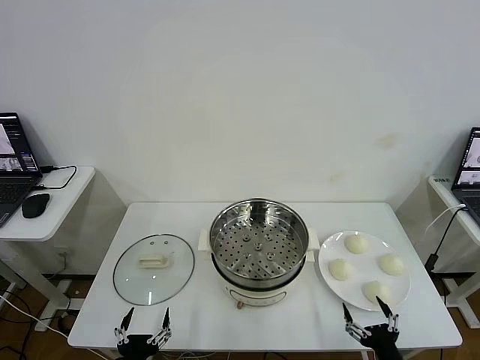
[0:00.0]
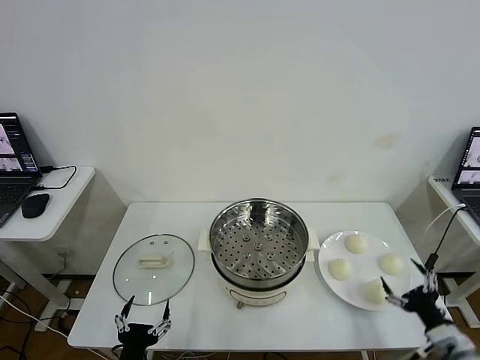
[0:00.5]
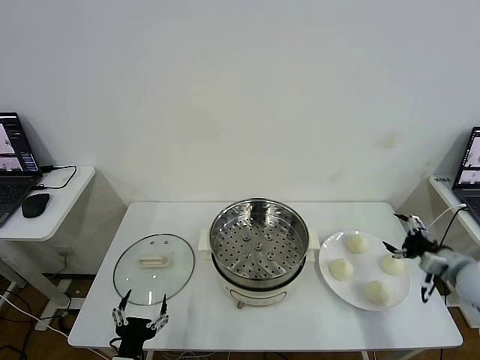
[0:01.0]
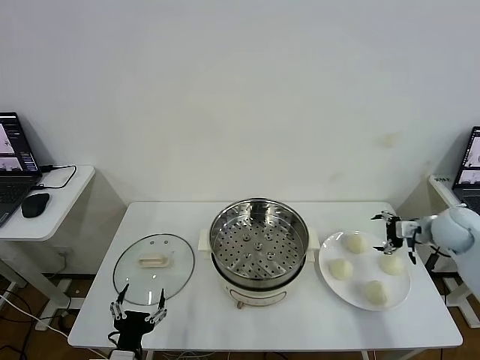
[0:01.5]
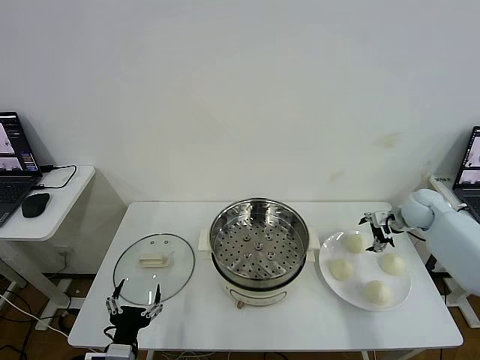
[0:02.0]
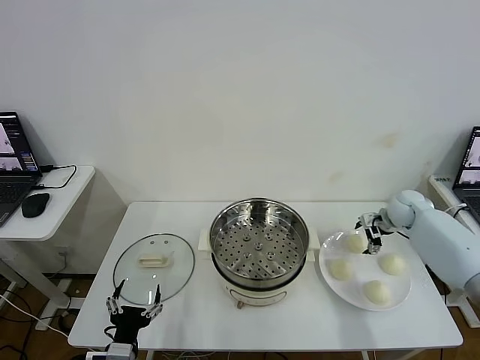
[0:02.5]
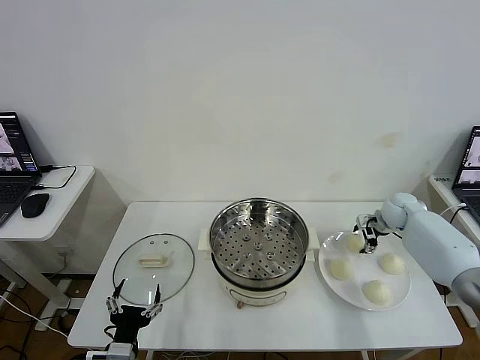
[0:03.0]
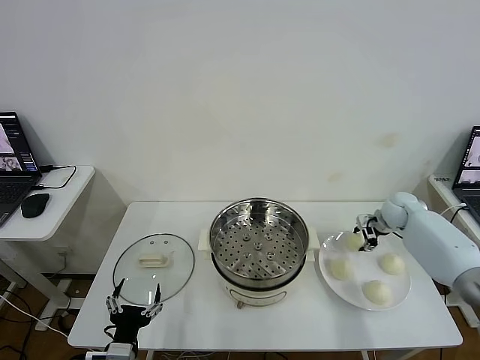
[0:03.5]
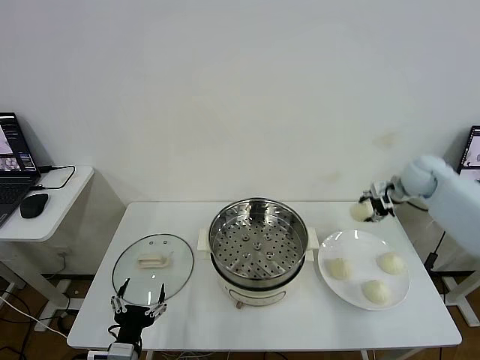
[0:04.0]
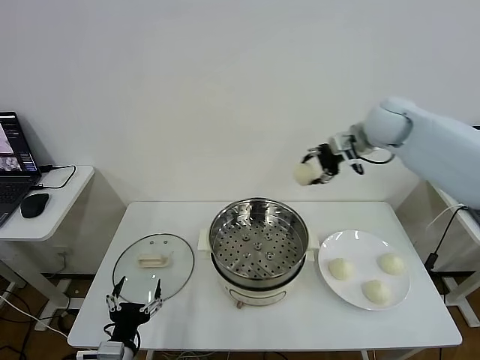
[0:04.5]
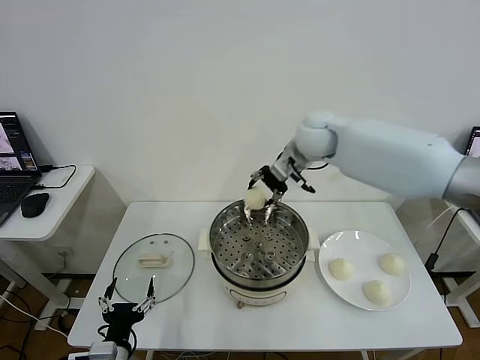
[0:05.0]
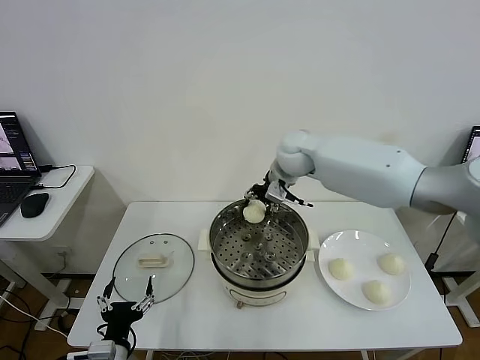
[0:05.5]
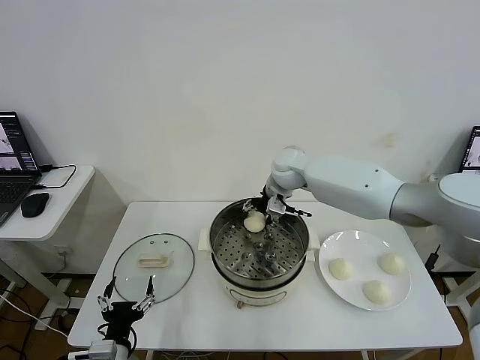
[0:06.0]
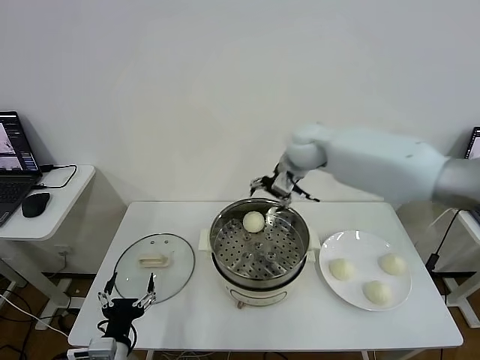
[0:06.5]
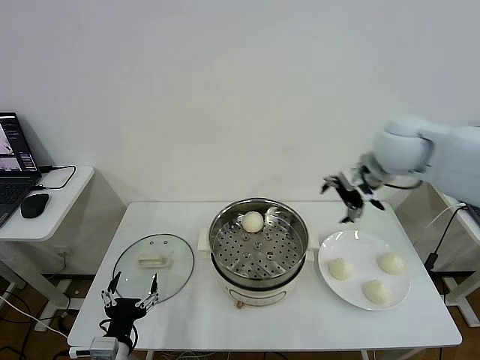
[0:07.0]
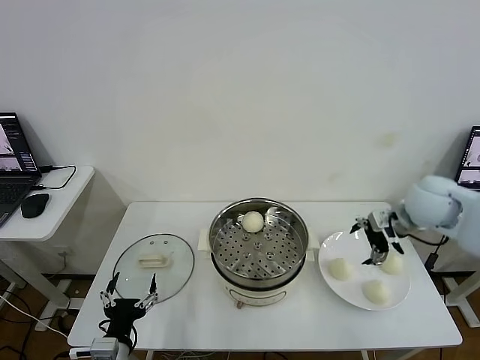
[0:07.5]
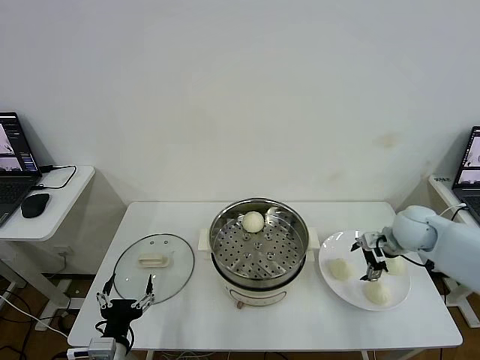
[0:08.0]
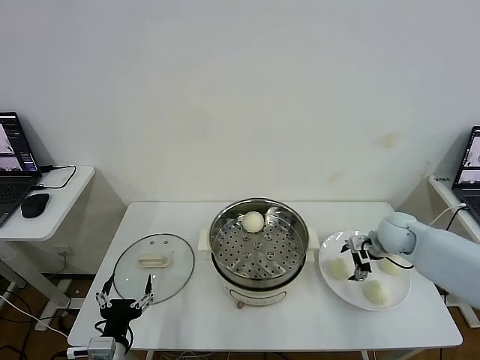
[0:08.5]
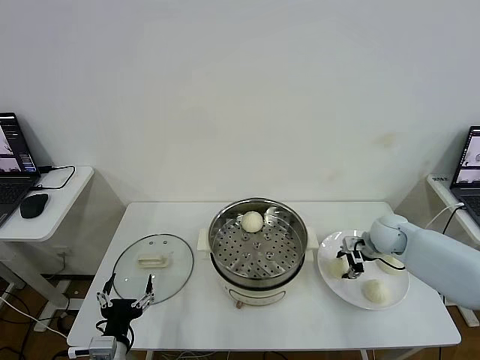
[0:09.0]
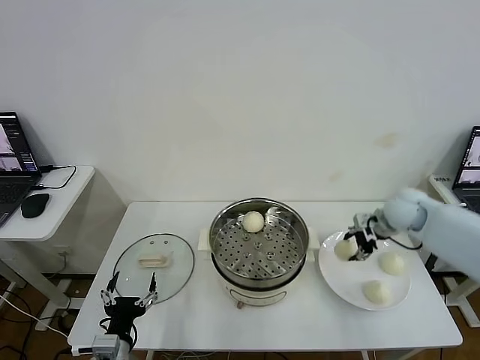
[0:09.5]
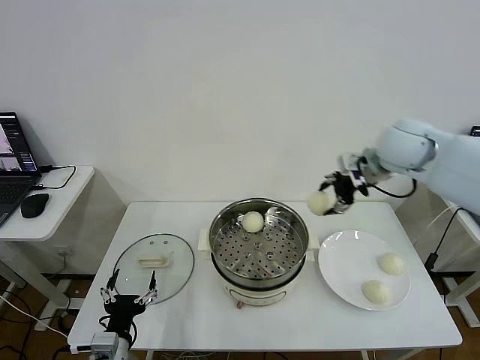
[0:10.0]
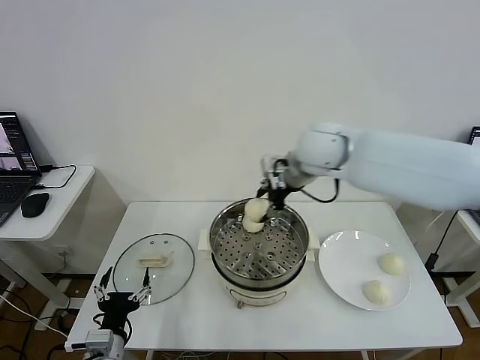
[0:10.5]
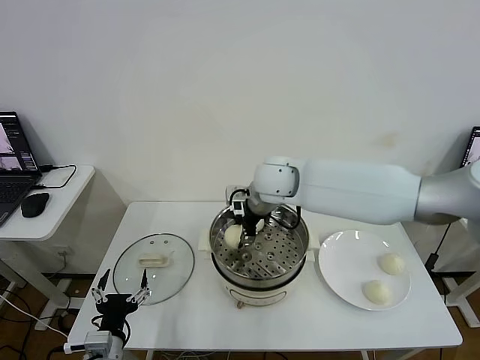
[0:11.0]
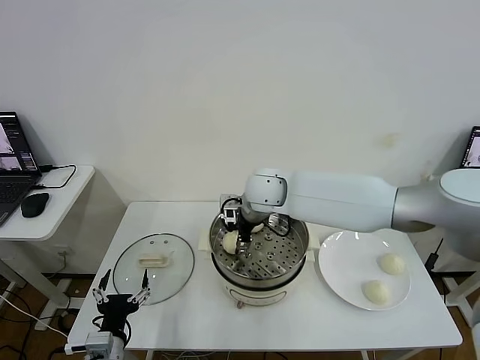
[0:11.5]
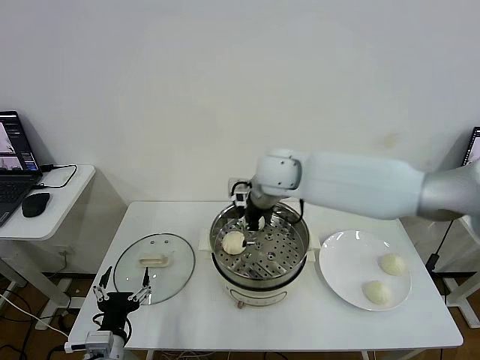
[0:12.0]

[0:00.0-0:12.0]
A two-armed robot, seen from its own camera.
Task of the whole recording: take steamed baozi put them in steamer then cover it.
Step, 0:00.0 to 0:03.0: Grasp the baozi in the plate with right gripper.
Step, 0:03.5 to 0:06.0: Place the baozi on the steamer with right gripper.
Step, 0:06.5 to 0:08.5: Grasp the baozi in the plate with right gripper.
Step, 0:09.5 to 0:11.5: Place the baozi on the steamer with right gripper.
0:02.0 to 0:04.0: The right gripper is displaced upward by roughly 15 cm, and closes up.
0:04.0 to 0:06.0: The right gripper is displaced to the left by some 30 cm, and opens.
0:06.0 to 0:08.0: The right gripper travels to the right and backward by approximately 30 cm.
0:08.0 to 0:10.0: The right gripper is displaced upward and to the left by some 25 cm, and closes its fingers.
0:10.0 to 0:12.0: The right gripper heads to the left, covering approximately 15 cm, and opens.

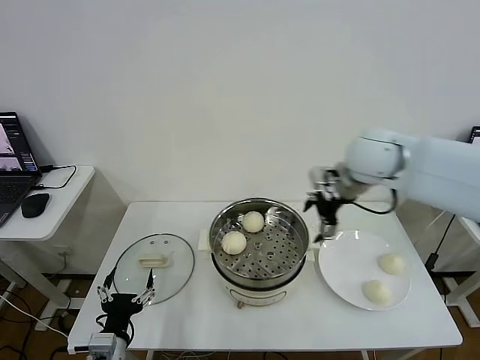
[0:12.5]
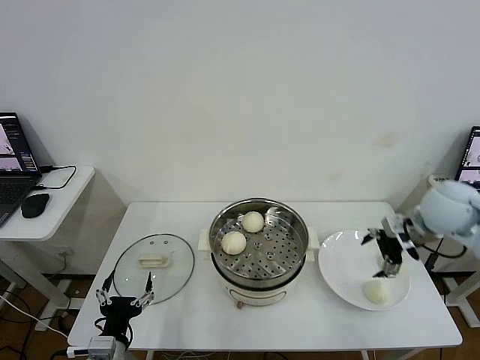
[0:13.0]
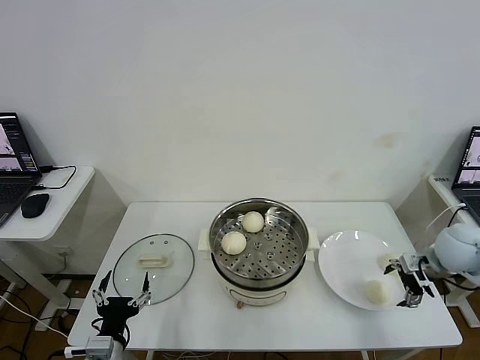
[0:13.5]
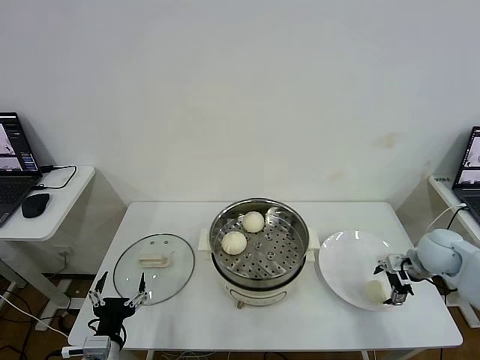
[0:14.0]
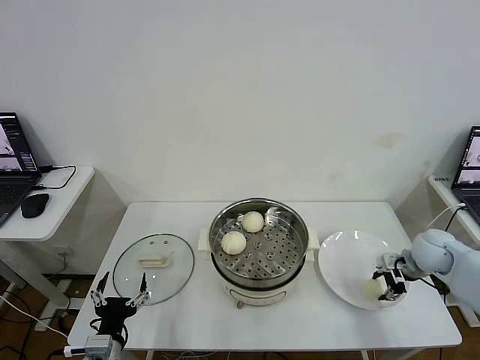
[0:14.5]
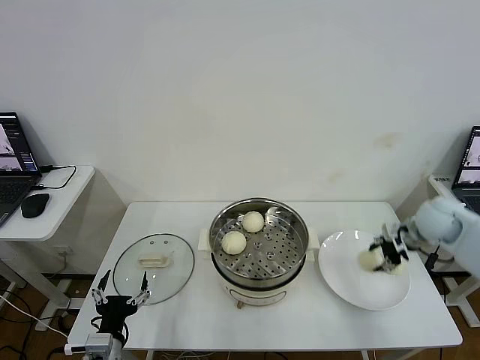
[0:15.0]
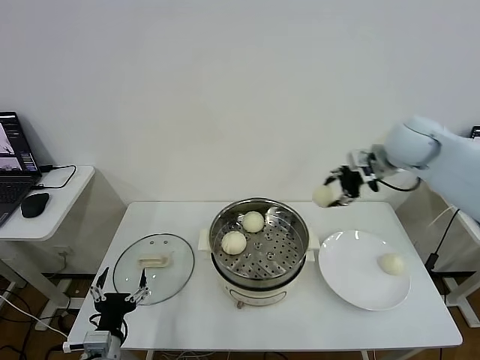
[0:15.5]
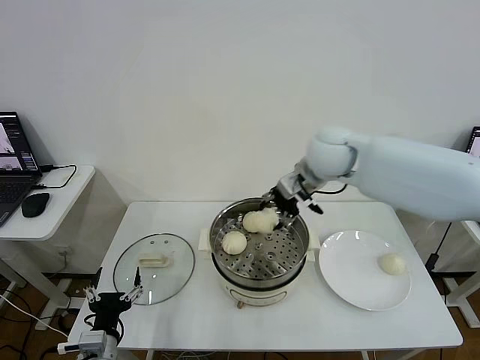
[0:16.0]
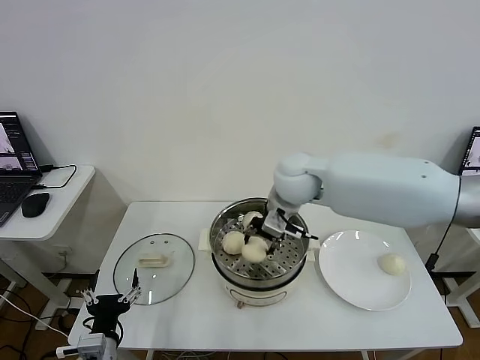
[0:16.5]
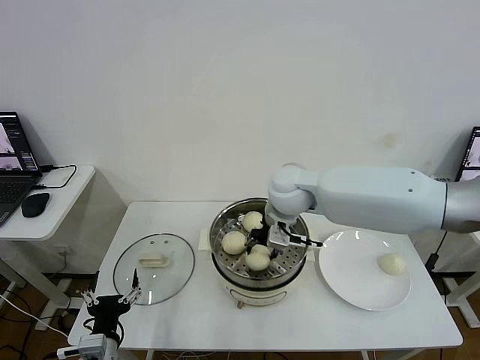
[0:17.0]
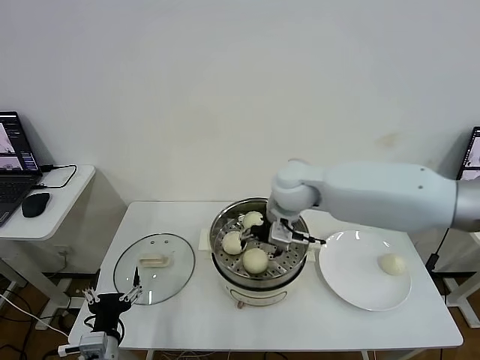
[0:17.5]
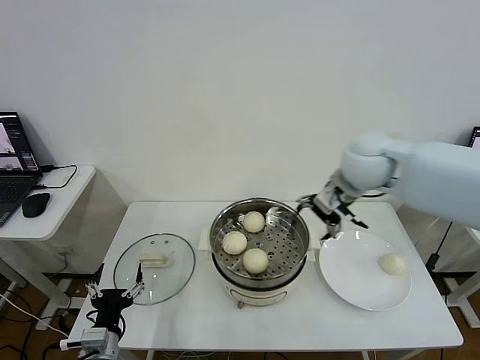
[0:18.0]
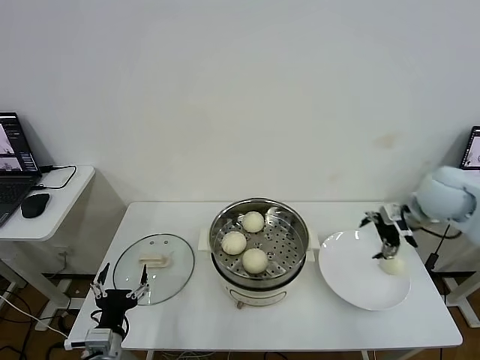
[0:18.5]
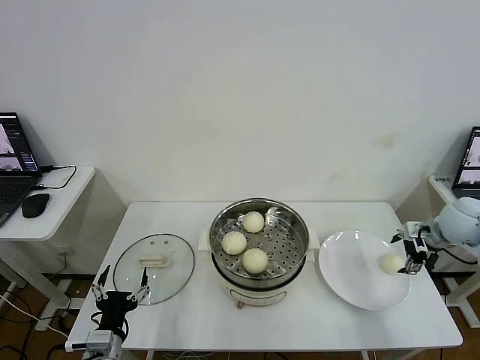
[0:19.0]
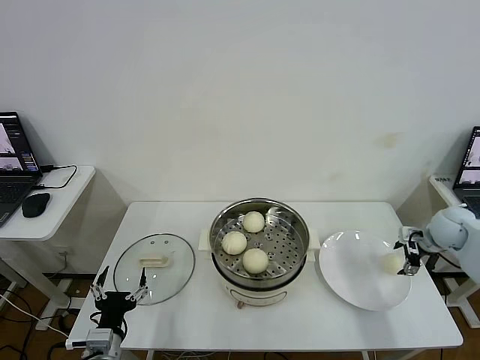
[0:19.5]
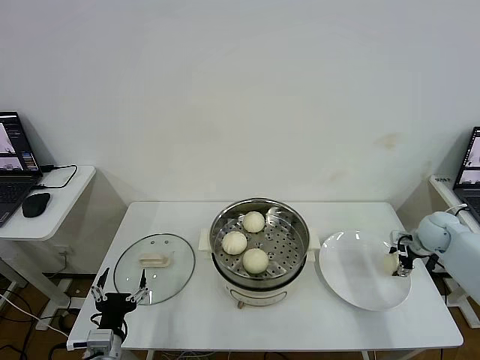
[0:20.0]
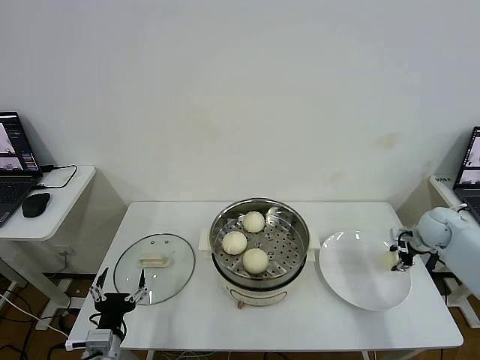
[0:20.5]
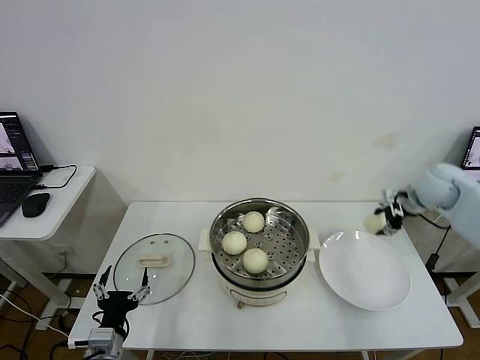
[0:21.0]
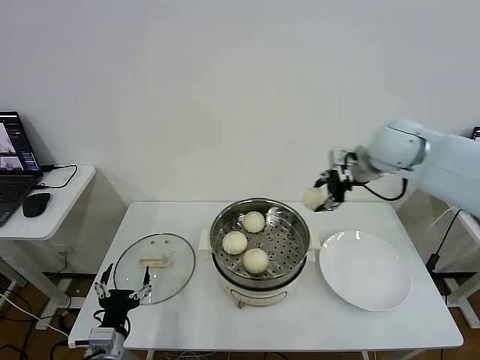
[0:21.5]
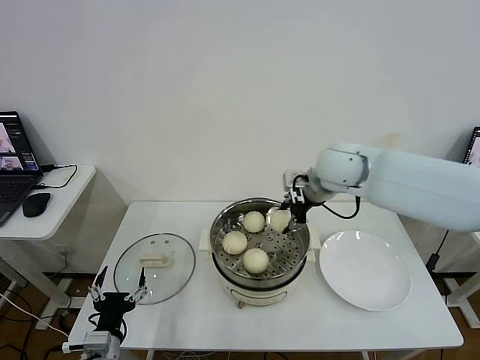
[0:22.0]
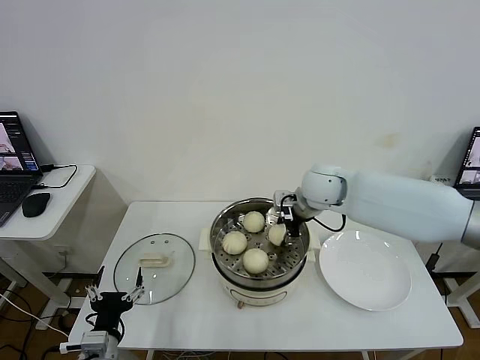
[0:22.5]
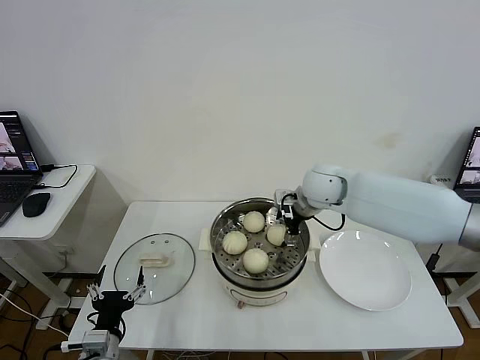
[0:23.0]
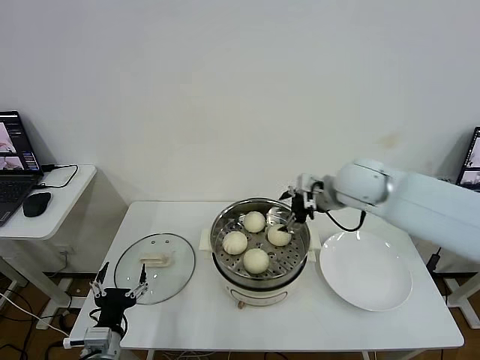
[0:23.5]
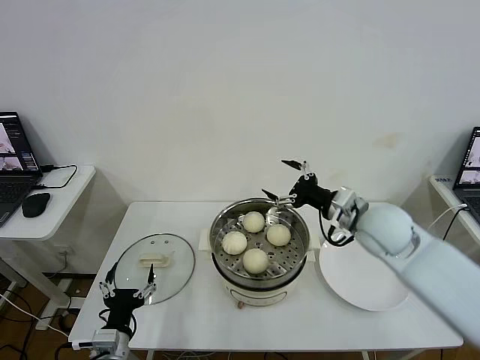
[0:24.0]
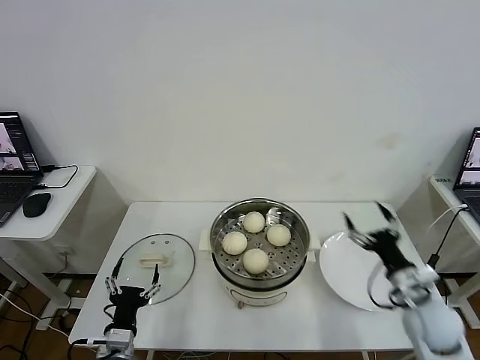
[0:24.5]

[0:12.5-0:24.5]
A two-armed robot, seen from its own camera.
Task of the whole recording: take steamed baozi put them in steamer then cover it.
Step, 0:12.5 to 0:14.5: Grasp the baozi in the plate with right gripper.
Step, 0:15.0 to 0:17.5: Place the baozi on the steamer with right gripper.
Step, 0:18.0 to 0:20.0: Grasp the baozi in the plate with right gripper.
Step, 0:20.5 to 0:23.0: Place the baozi on the steamer with right gripper.
0:12.5 to 0:14.5: The right gripper is displaced downward and to the right by some 30 cm, and closes up.
0:14.5 to 0:16.5: The right gripper is displaced to the left and upward by about 40 cm.
0:16.5 to 0:18.5: The right gripper goes roughly 30 cm to the right, and opens its fingers.
0:18.5 to 0:20.5: The right gripper is displaced downward and to the right by some 20 cm, and closes up.
0:20.5 to 0:22.5: The right gripper heads to the left, covering some 30 cm.
0:22.5 to 0:24.5: The right gripper travels backward, to the right and downward by some 35 cm, and opens its fingers.

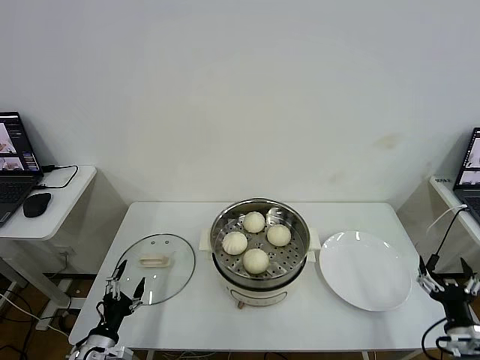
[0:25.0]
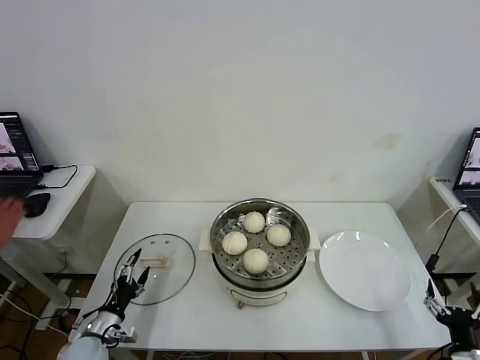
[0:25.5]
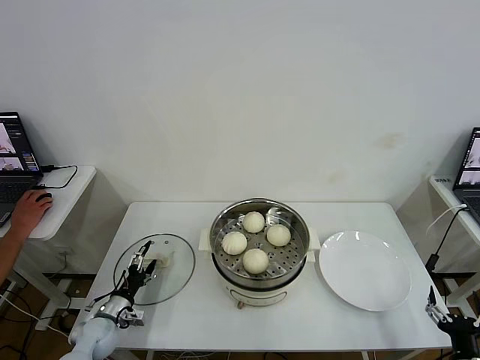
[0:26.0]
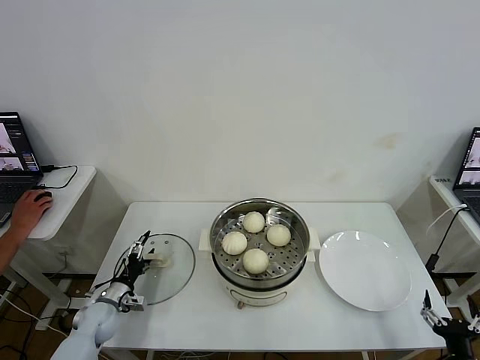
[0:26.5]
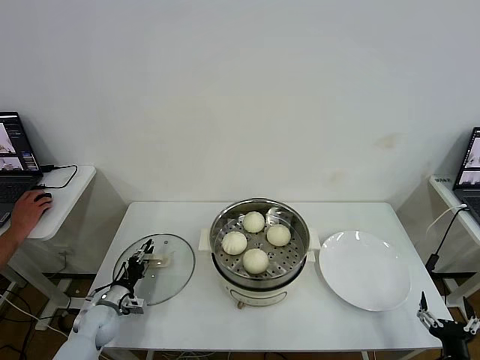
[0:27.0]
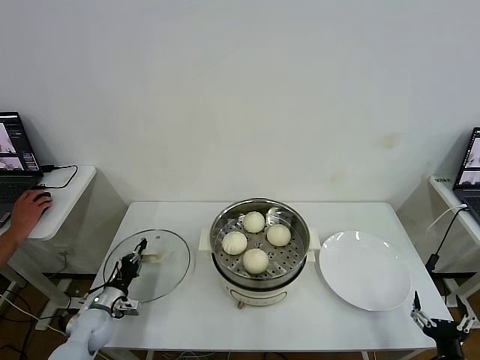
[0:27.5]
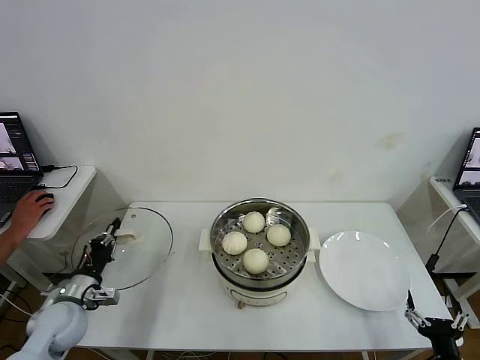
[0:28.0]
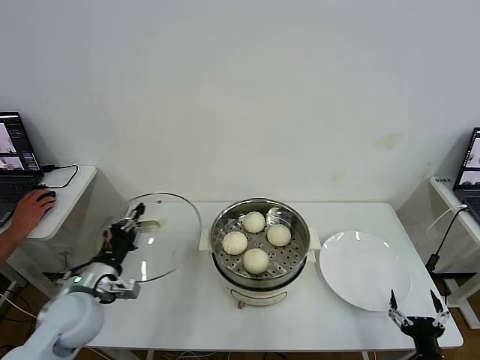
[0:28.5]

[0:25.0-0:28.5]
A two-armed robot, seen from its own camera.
Task of the whole recording: take steamed baozi put them in steamer then cover it.
Step, 0:25.0 to 0:27.5: Grasp the pot lid with left gripper.
0:25.0 to 0:27.0: The left gripper shifts approximately 15 cm forward, and closes; the right gripper goes roughly 5 cm backward.
0:27.0 to 0:28.5: The left gripper moves upward, approximately 20 cm, and closes.
